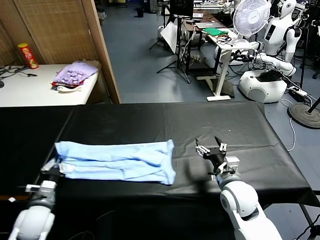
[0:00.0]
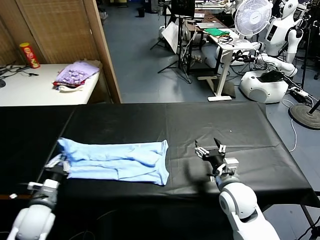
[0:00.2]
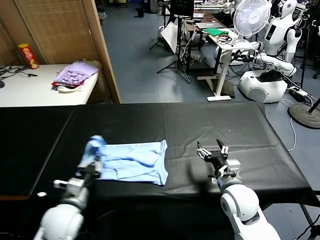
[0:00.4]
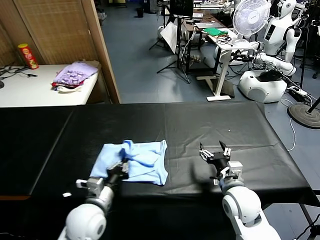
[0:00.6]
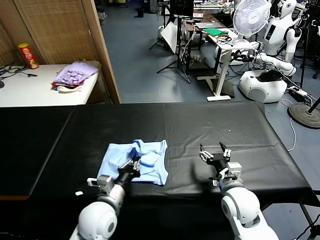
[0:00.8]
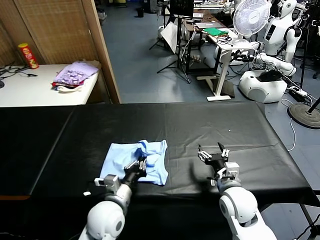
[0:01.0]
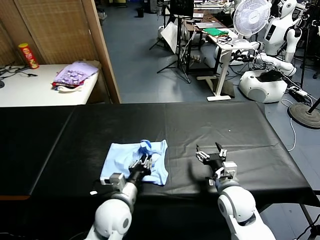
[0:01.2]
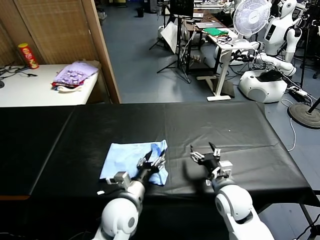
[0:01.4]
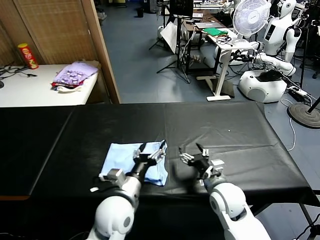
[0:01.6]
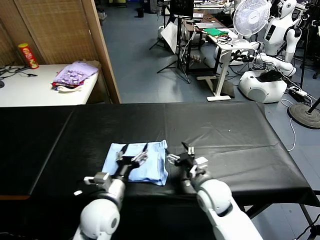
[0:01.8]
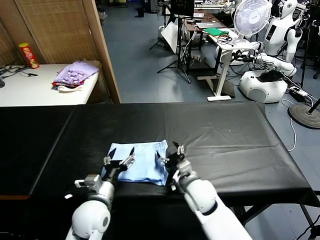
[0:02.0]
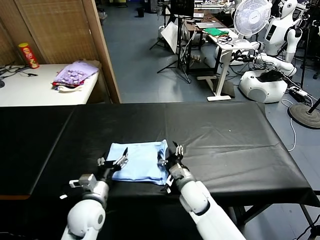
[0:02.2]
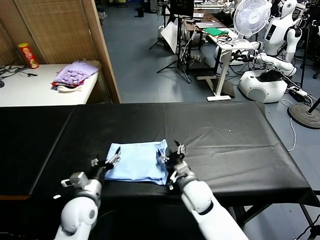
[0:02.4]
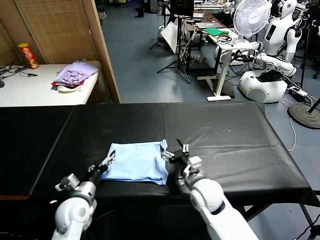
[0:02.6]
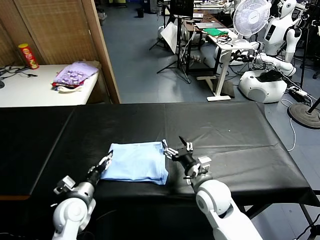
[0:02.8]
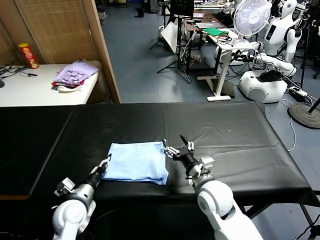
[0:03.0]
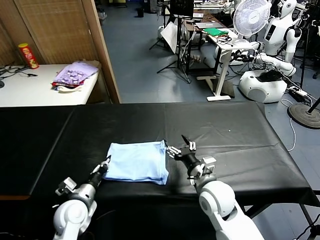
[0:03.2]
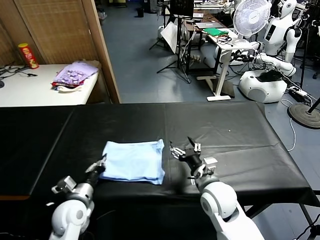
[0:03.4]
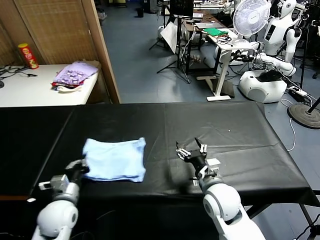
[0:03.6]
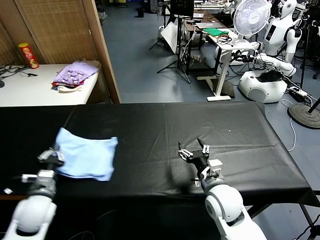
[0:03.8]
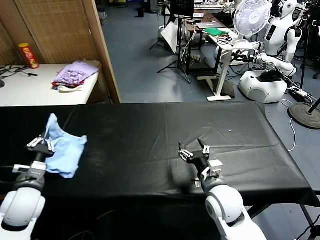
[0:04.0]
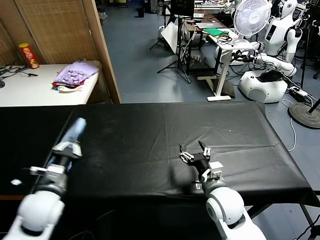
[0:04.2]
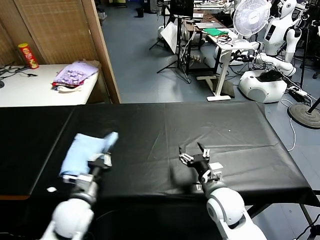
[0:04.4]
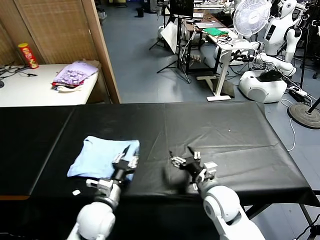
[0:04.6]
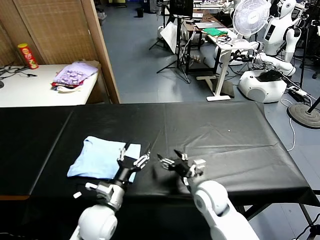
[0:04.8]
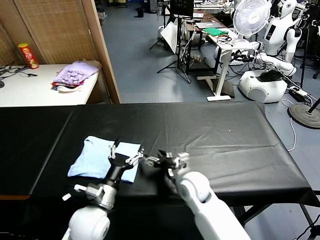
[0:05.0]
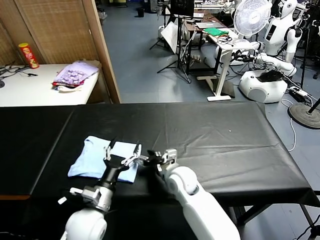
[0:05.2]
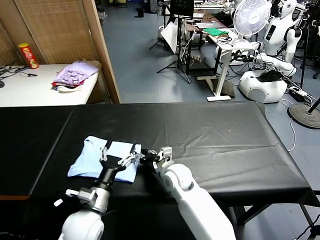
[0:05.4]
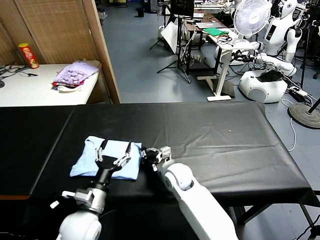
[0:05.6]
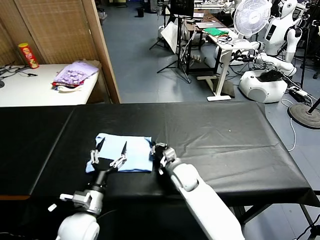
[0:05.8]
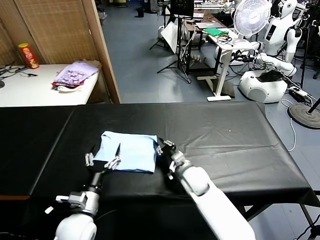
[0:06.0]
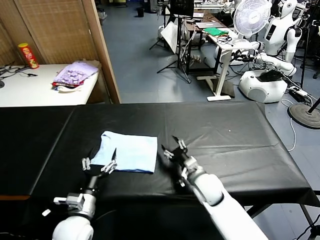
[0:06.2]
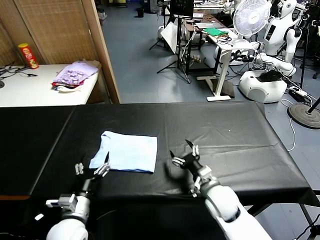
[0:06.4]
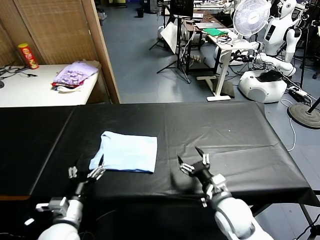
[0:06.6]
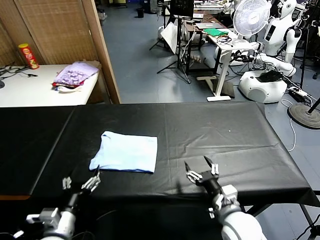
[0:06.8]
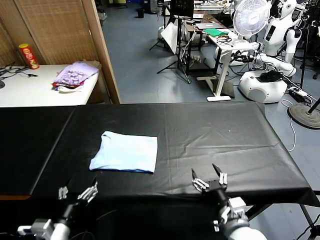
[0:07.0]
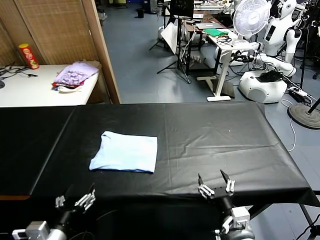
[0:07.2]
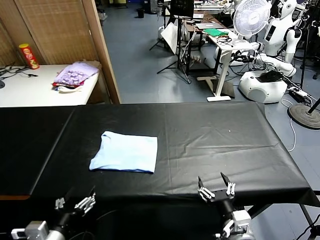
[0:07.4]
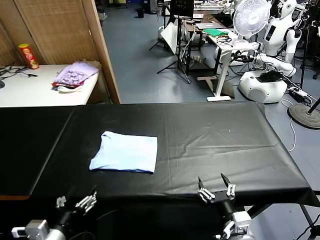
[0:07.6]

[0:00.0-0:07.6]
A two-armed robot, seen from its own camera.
Task of the whole recording: fold and organize the clothes.
Step, 0:00.0 to 0:01.2: use the left gripper to drag the left edge of the fabric to the left and folds it over the right edge.
Step, 0:01.4 to 0:04.6: Flip the folded clothes over with left gripper.
Step, 0:04.8 to 0:06.0: Drag the clothes to the center of the table.
0:00.0 to 0:01.6: The left gripper heads to the right, covering some 25 cm, and opens.
0:01.6 to 0:03.0: The left gripper heads to the left and downward, covering some 20 cm, and closes its fingers. The right gripper travels downward and back again, some 5 cm each way.
0:03.0 to 0:04.6: The left gripper travels to the right by about 10 cm.
0:04.6 to 0:06.0: The right gripper heads forward, downward and to the left, covering about 15 cm, and closes, while the left gripper opens up.
0:06.0 to 0:07.6: The left gripper heads backward, upward and to the left, covering roughly 15 cm; the right gripper travels backward by approximately 25 cm, and opens.
